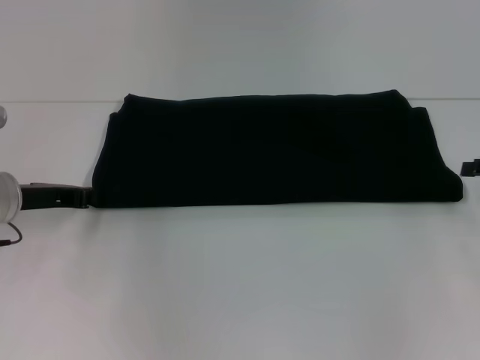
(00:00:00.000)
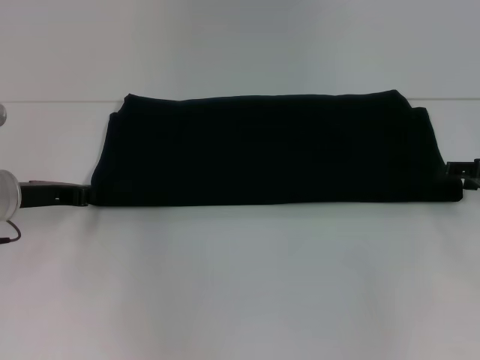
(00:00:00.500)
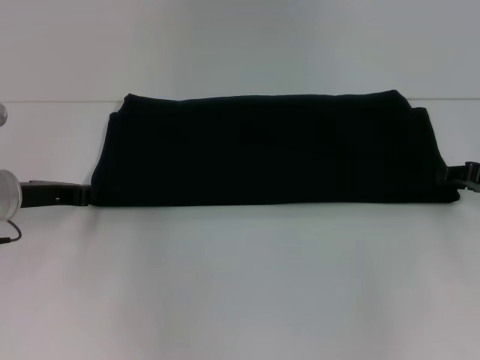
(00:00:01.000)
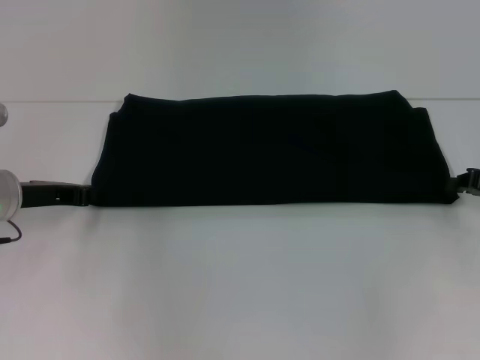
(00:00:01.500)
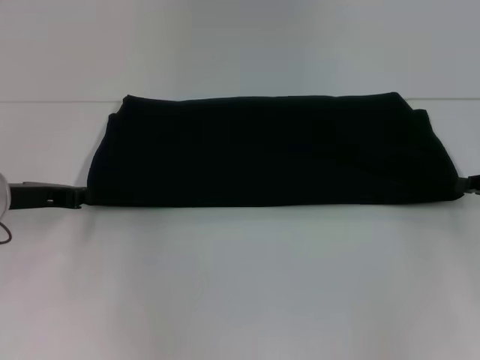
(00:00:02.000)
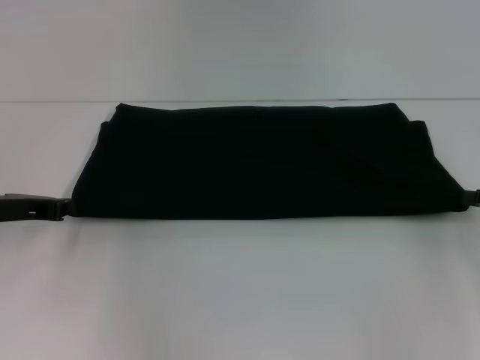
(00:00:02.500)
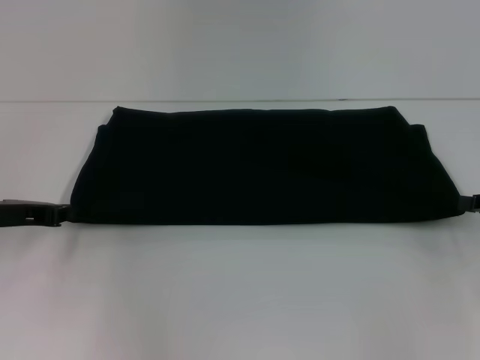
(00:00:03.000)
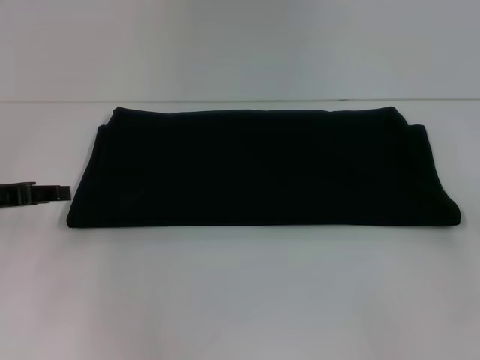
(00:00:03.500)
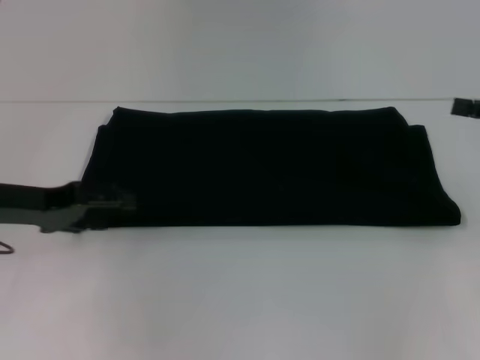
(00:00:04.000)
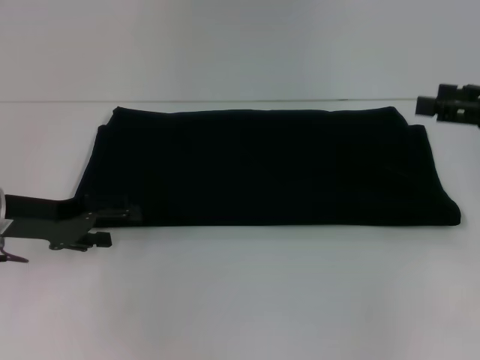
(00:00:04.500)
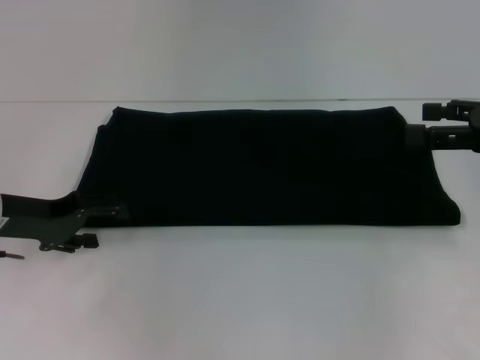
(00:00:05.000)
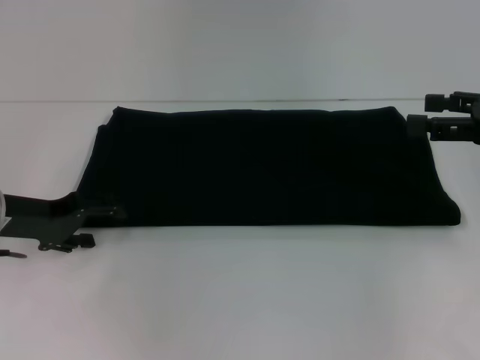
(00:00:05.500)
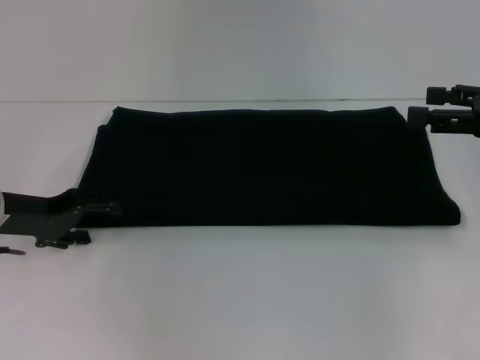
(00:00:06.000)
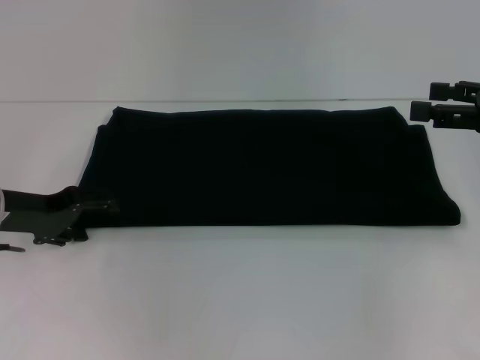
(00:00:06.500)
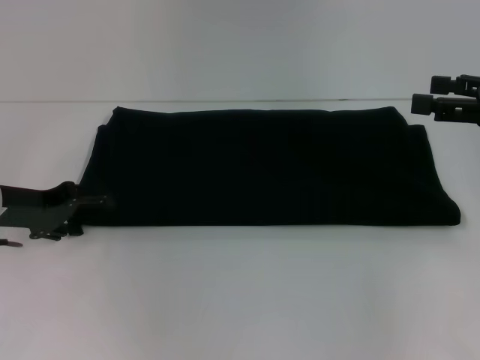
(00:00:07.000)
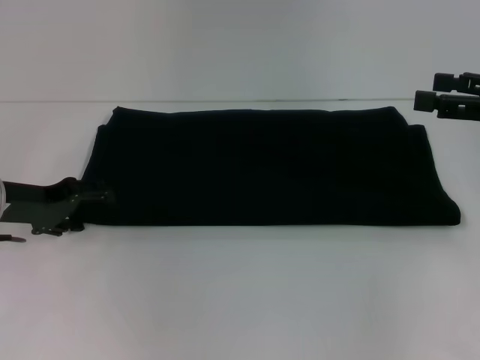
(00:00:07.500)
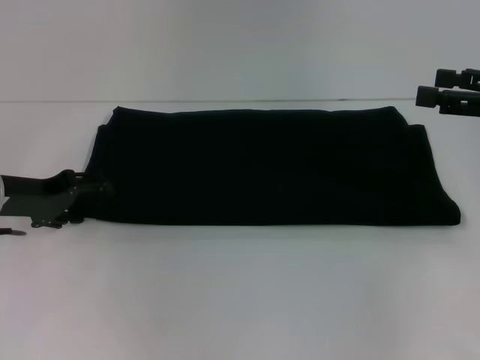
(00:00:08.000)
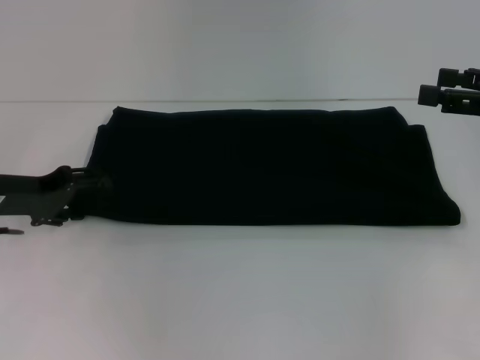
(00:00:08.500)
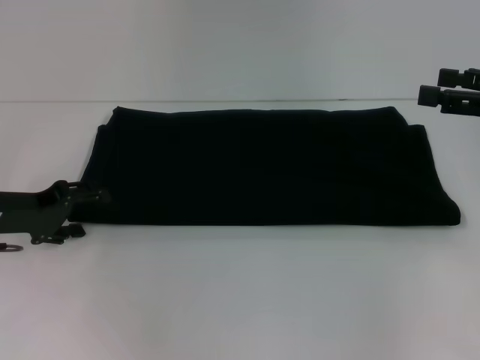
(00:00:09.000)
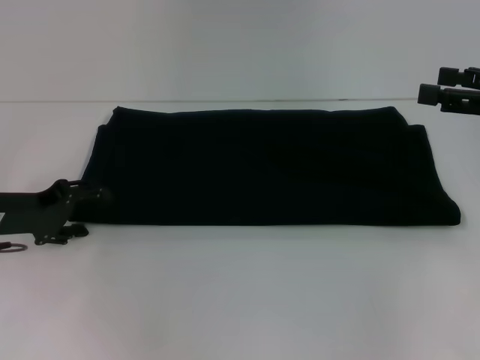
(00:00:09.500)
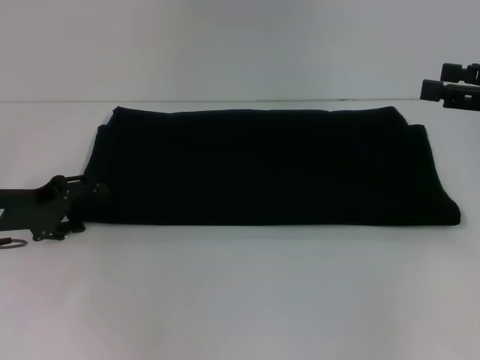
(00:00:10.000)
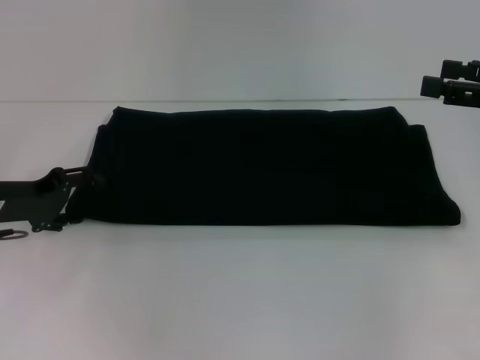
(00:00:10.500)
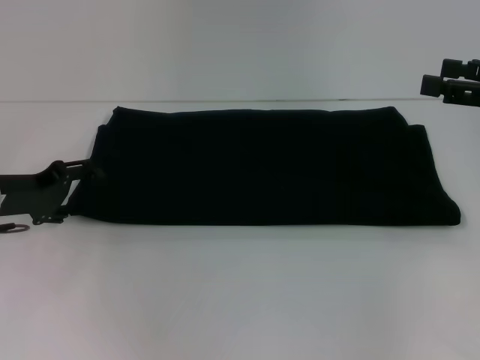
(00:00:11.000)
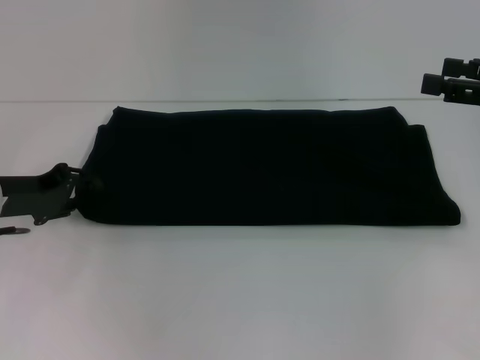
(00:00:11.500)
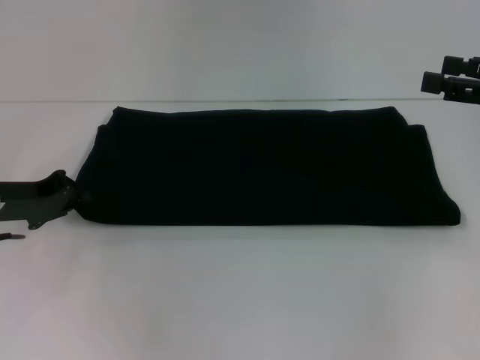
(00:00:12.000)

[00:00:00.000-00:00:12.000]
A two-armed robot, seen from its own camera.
00:00:00.000 to 00:00:02.000: The right gripper closes its fingers.
00:00:02.000 to 00:00:04.000: The right gripper moves upward, roughly 10 cm, and opens its fingers. The left gripper opens its fingers.
00:00:06.000 to 00:00:10.000: There are only small adjustments of the grippers.
00:00:10.000 to 00:00:12.000: The left gripper closes up.

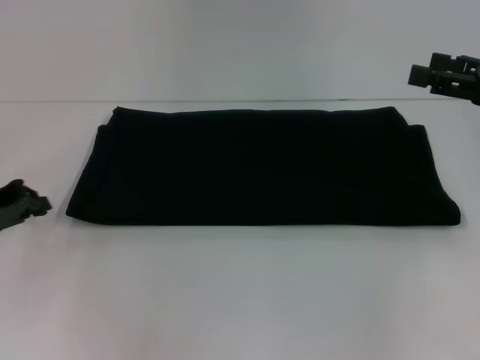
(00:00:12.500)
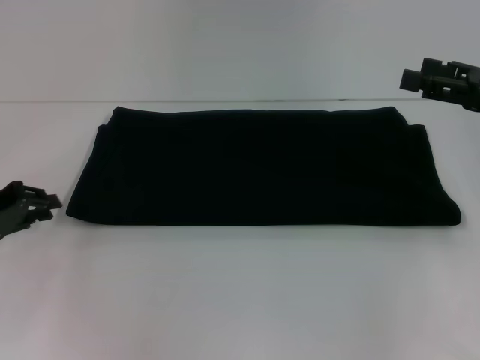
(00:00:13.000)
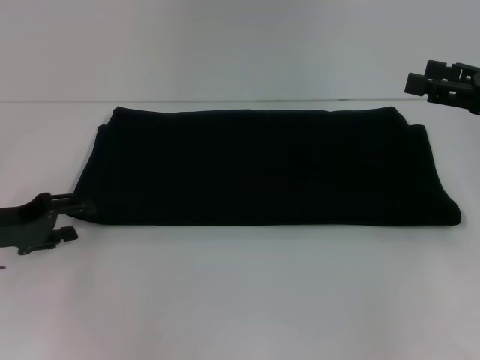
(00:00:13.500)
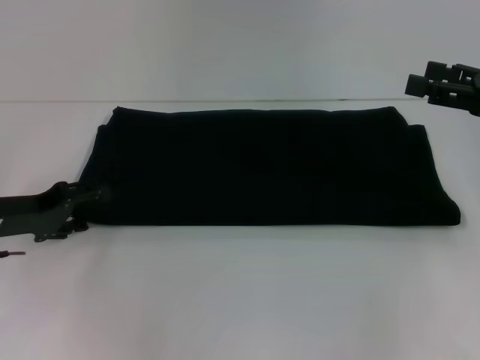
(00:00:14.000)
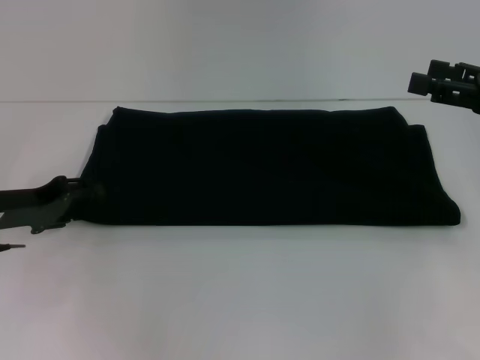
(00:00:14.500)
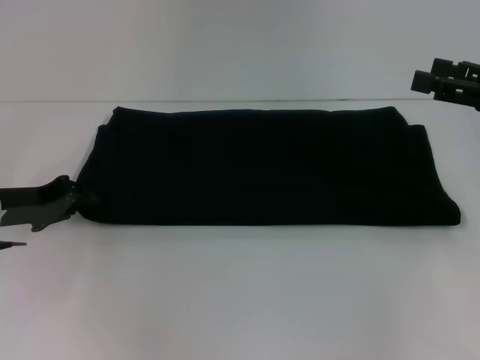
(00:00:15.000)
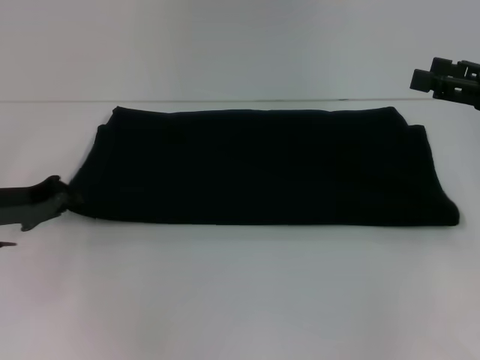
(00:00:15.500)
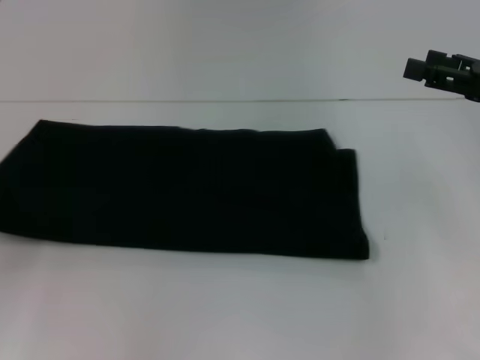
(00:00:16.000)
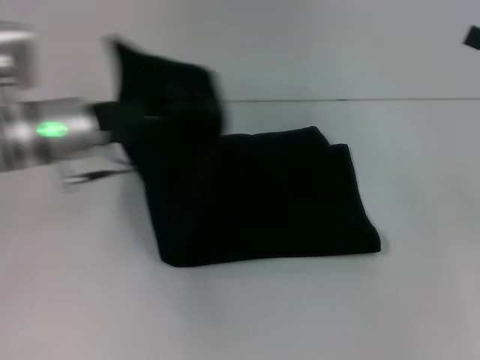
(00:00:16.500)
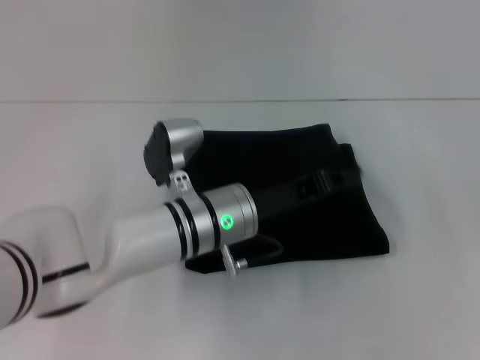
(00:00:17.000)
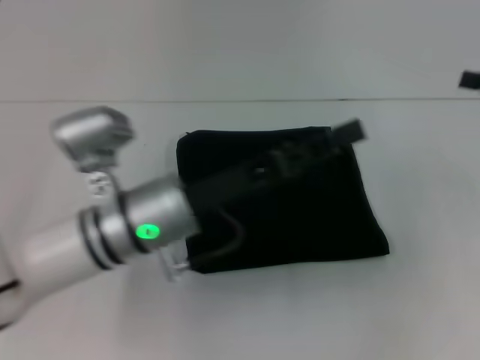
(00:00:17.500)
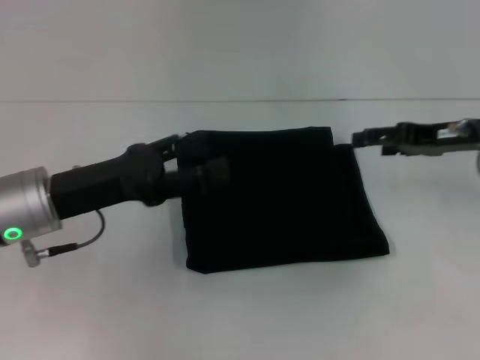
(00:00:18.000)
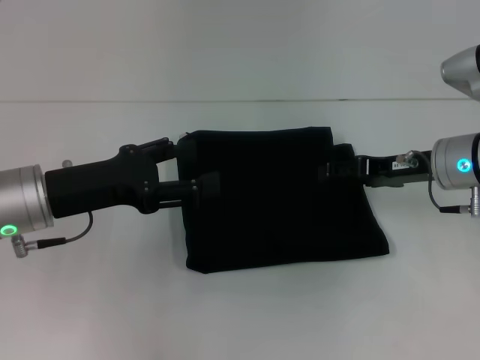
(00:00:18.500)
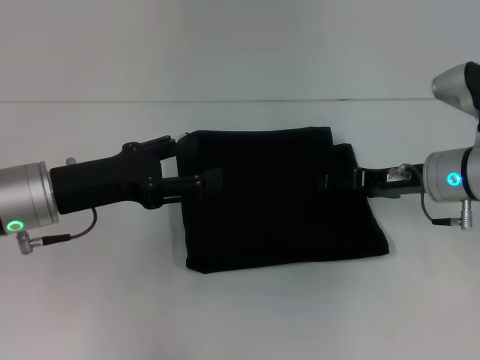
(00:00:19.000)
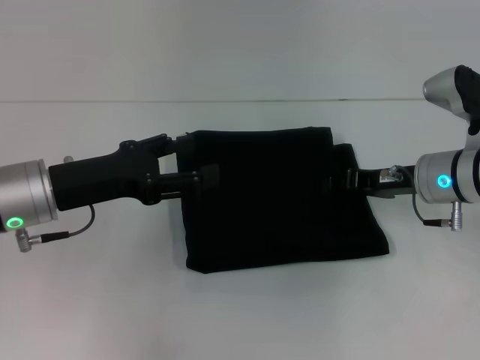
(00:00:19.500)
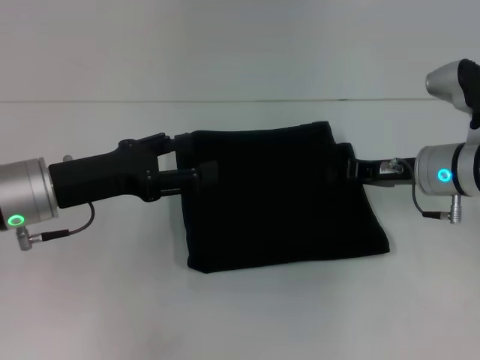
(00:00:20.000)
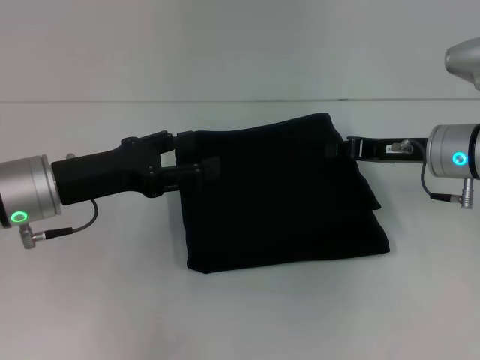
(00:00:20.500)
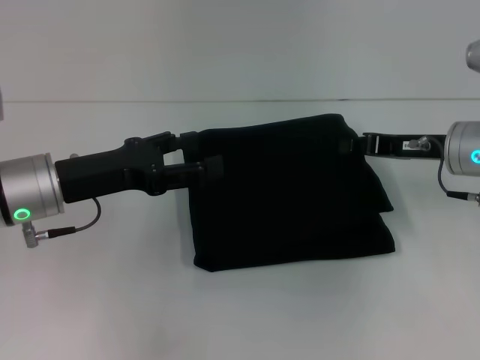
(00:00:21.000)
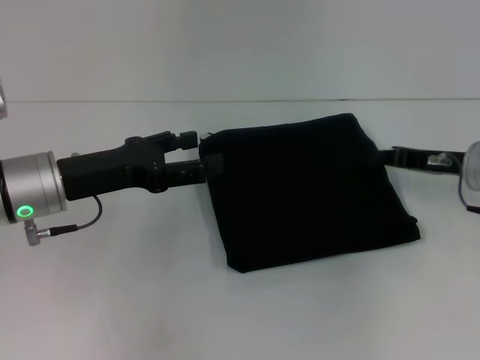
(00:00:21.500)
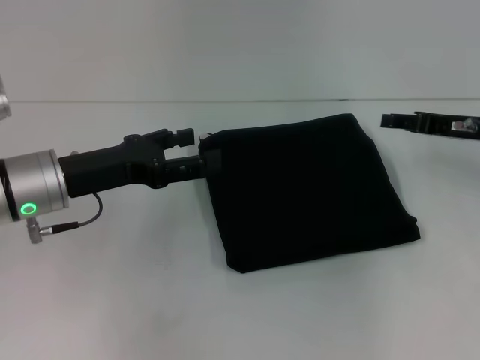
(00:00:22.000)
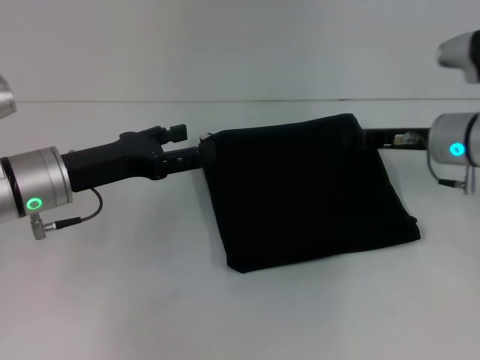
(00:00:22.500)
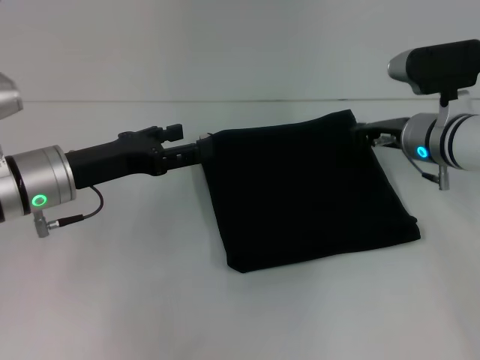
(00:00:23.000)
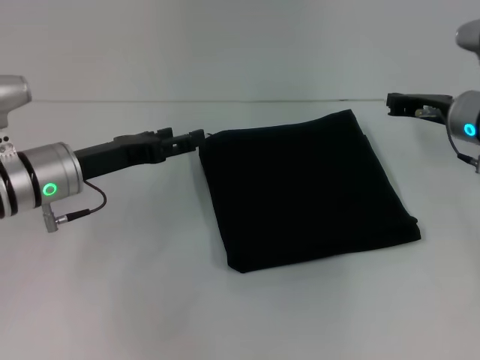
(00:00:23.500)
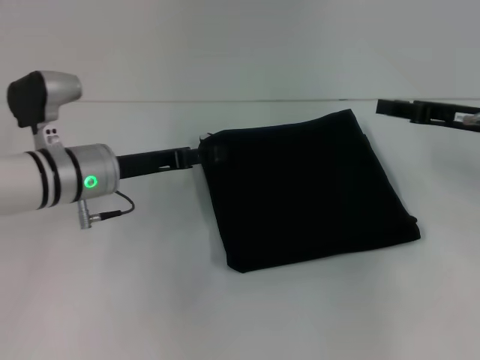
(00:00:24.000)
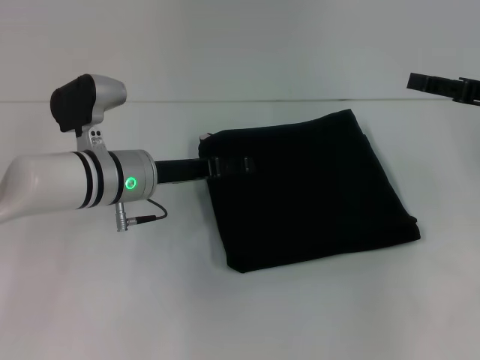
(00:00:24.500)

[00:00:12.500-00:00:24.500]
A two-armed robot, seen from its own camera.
Step, 00:00:12.500 to 00:00:17.000: Fold the clothes with your left hand.
00:00:12.500 to 00:00:14.500: The left gripper opens its fingers.
00:00:14.500 to 00:00:16.500: The left gripper travels to the right and upward by about 15 cm, and closes its fingers.
00:00:16.500 to 00:00:18.500: The left gripper heads backward, covering approximately 5 cm, reaches approximately 15 cm to the right, then returns, and opens; the right gripper moves to the left, downward and forward, roughly 15 cm.
00:00:18.500 to 00:00:20.500: The right gripper closes up.
00:00:22.500 to 00:00:24.500: The right gripper moves to the right and upward, about 10 cm, and opens up. The left gripper goes roughly 5 cm to the right.

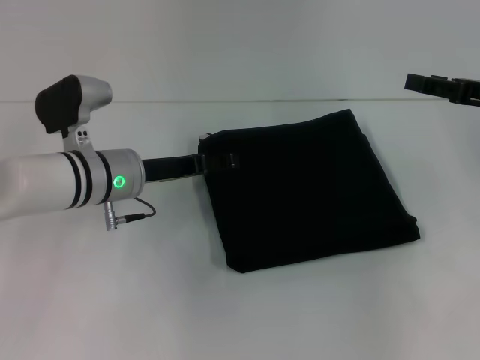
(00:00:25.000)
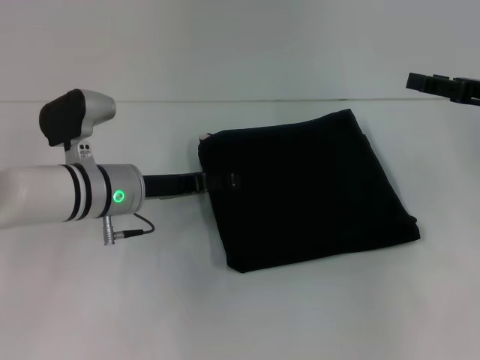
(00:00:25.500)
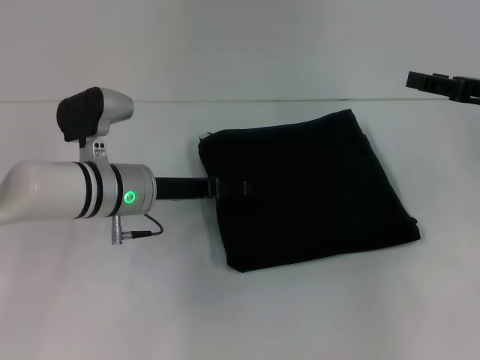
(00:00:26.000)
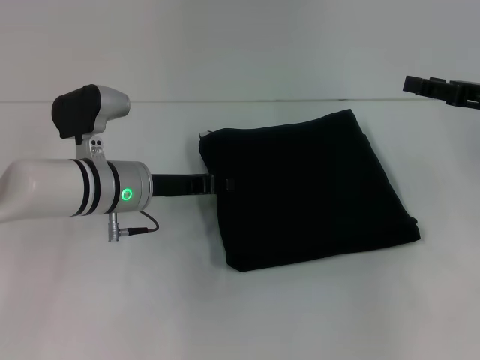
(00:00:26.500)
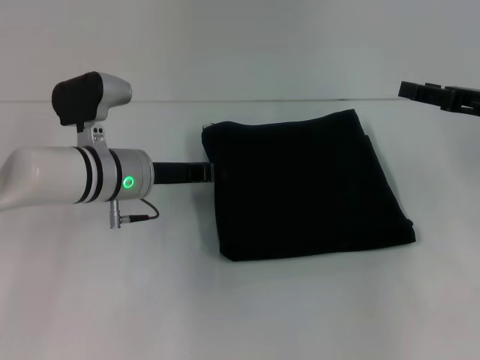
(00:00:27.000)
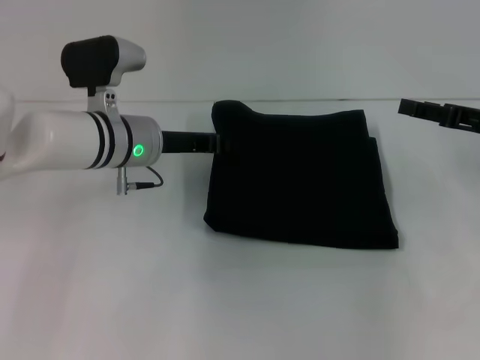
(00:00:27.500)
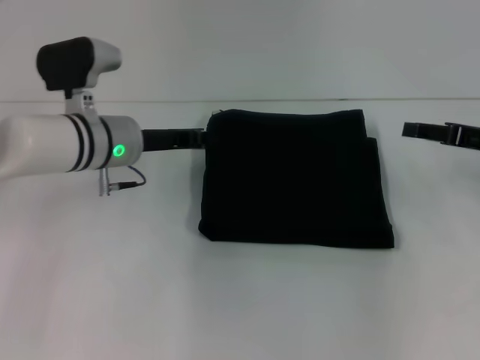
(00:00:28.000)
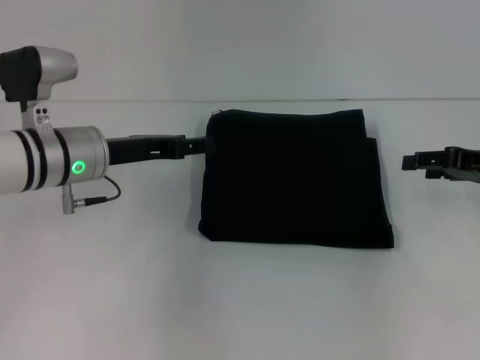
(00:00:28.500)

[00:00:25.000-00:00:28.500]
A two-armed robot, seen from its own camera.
00:00:25.000 to 00:00:27.000: The left gripper closes up.
00:00:27.000 to 00:00:28.500: The left gripper ends up some 5 cm from where it was, and opens up.
